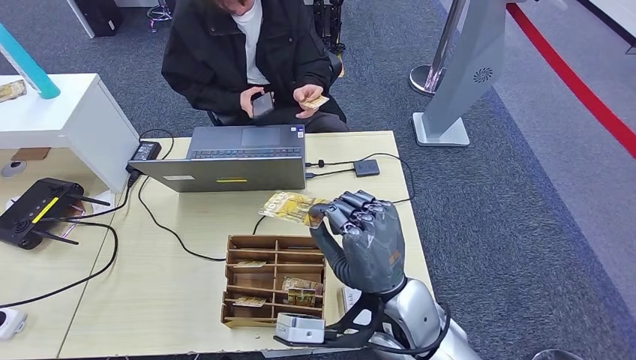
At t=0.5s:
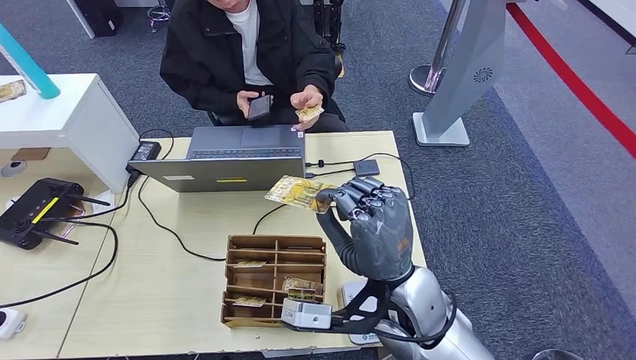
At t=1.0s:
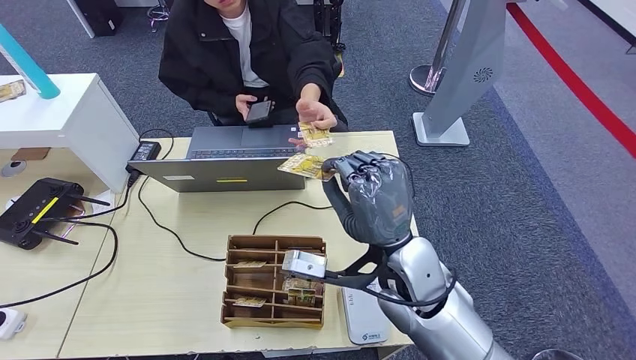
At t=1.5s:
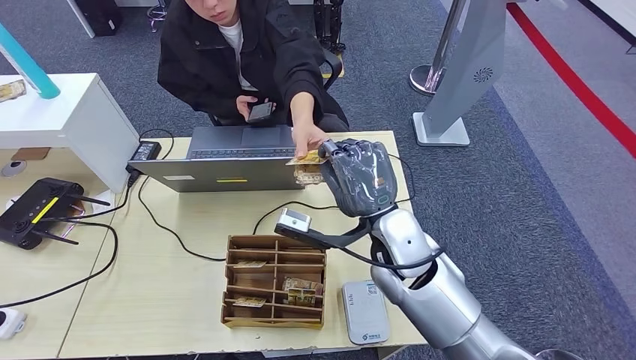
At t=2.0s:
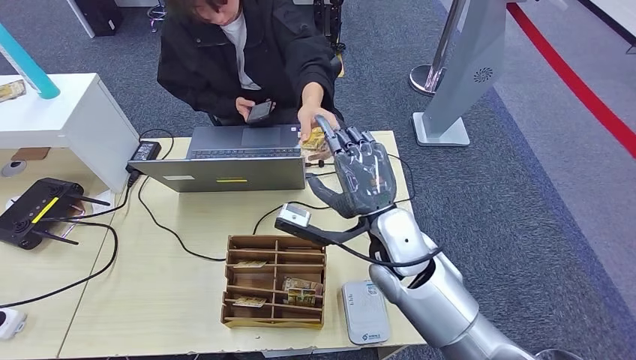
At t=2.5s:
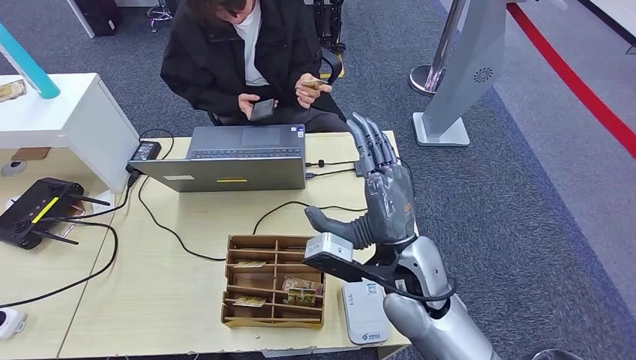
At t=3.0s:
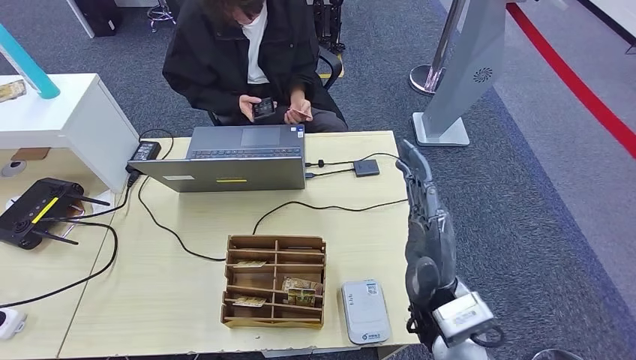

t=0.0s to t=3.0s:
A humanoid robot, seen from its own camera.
Step, t=0.0s to t=3.0s: Hand the room key to the person.
t=0.0s to t=1.5s: The right hand shifts approximately 10 cm forward.
t=1.5s to t=3.0s: The right hand goes approximately 10 cm backward.

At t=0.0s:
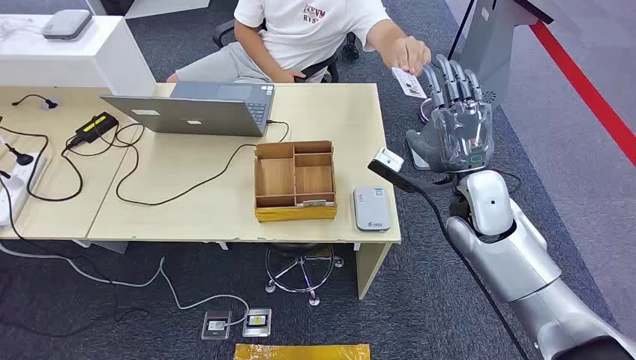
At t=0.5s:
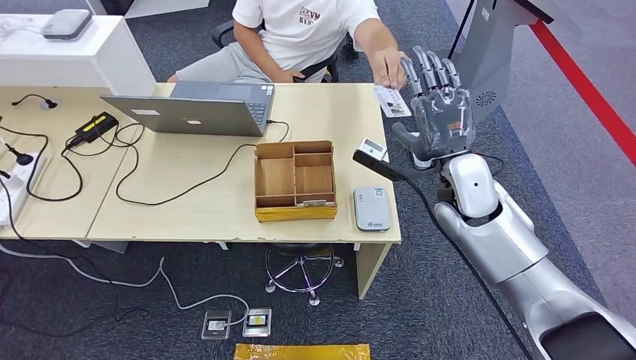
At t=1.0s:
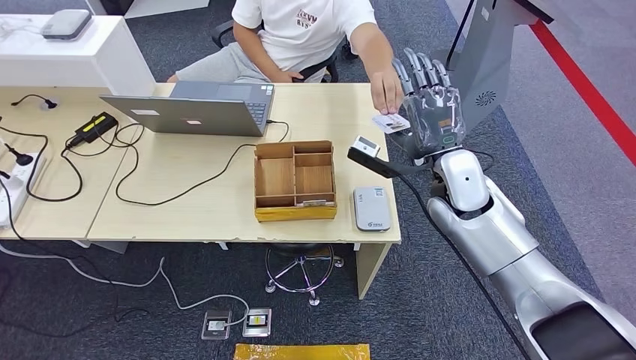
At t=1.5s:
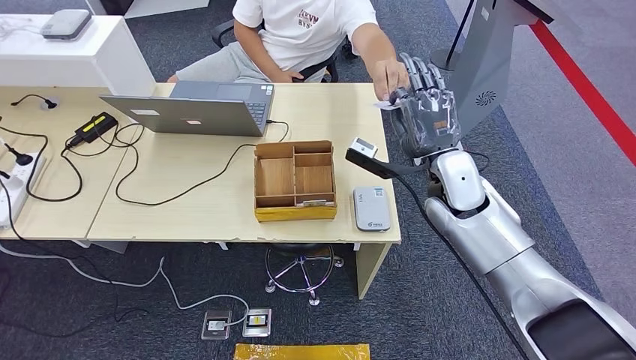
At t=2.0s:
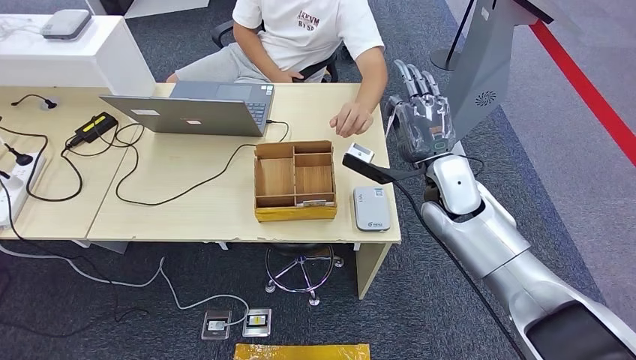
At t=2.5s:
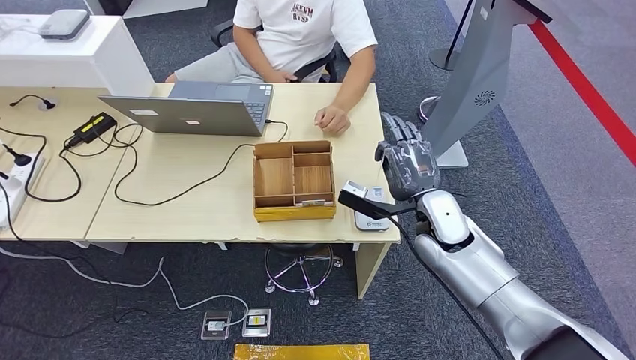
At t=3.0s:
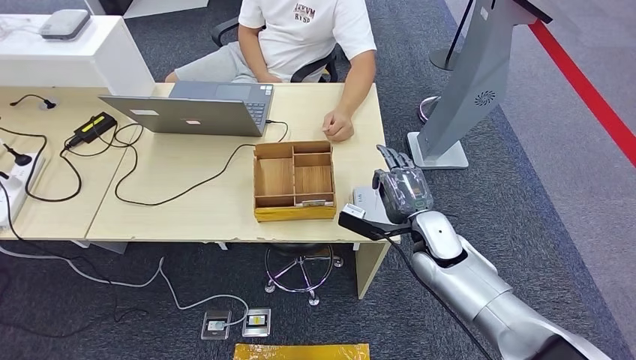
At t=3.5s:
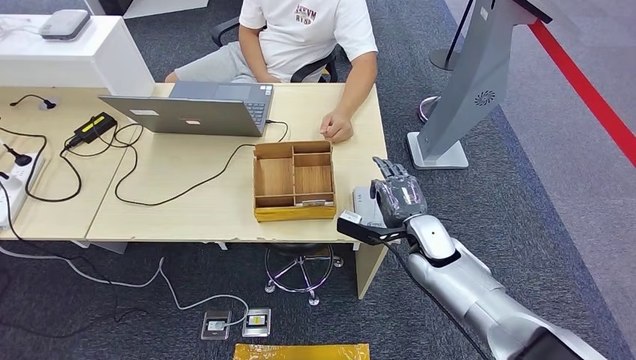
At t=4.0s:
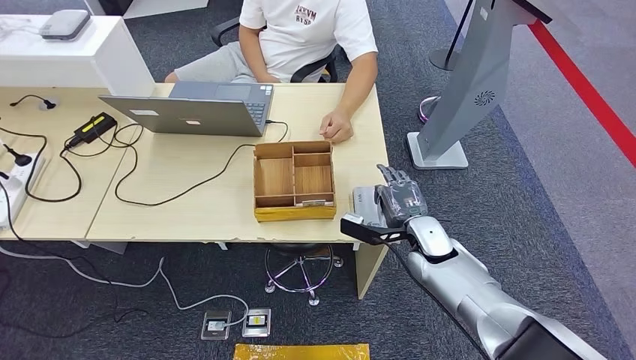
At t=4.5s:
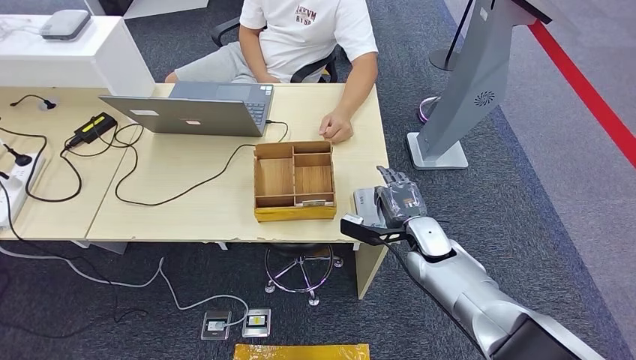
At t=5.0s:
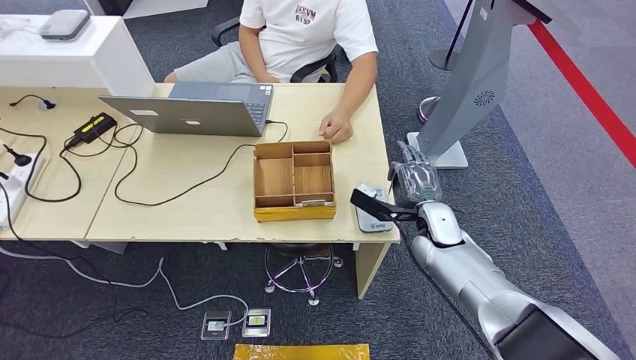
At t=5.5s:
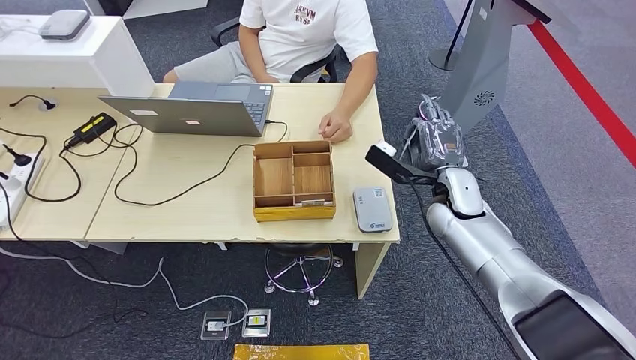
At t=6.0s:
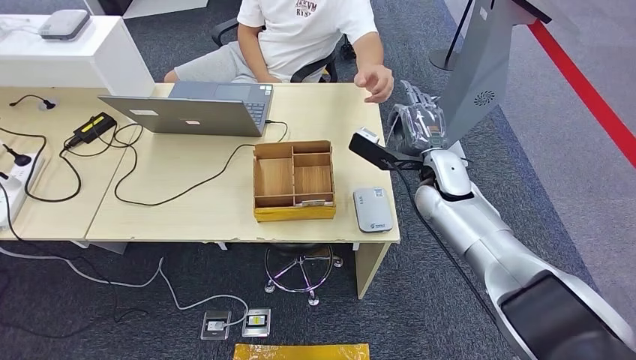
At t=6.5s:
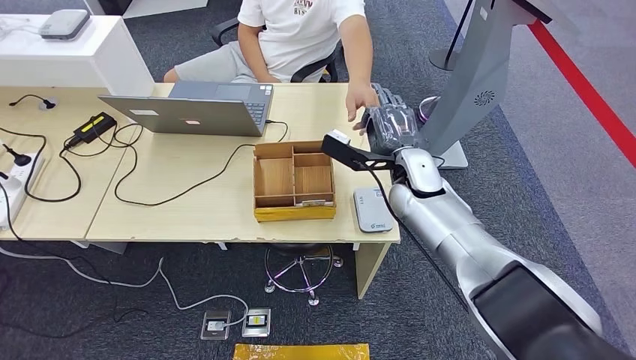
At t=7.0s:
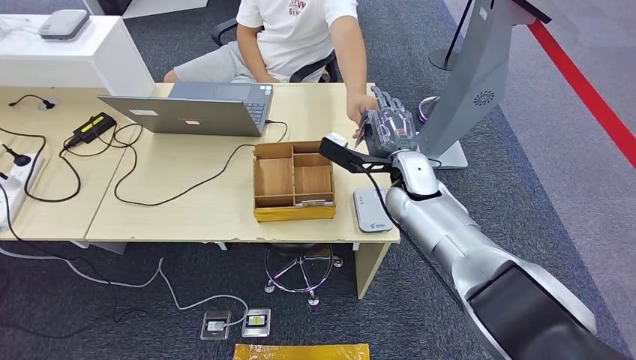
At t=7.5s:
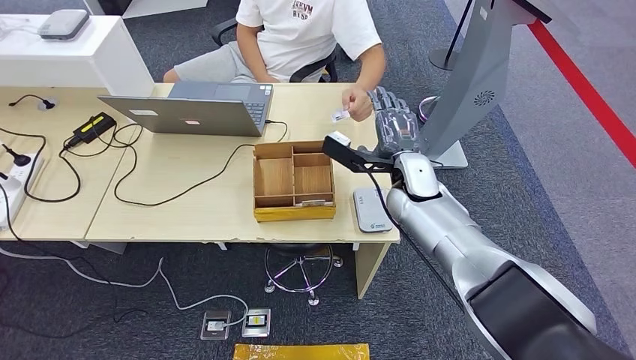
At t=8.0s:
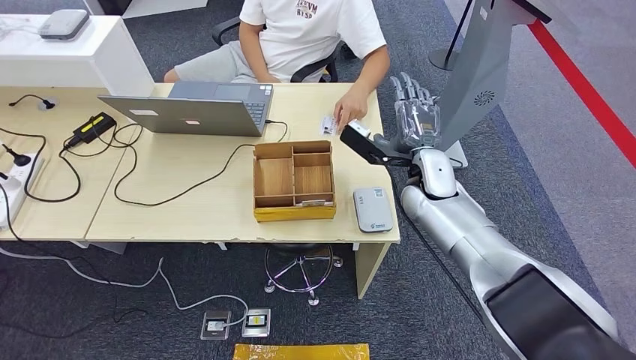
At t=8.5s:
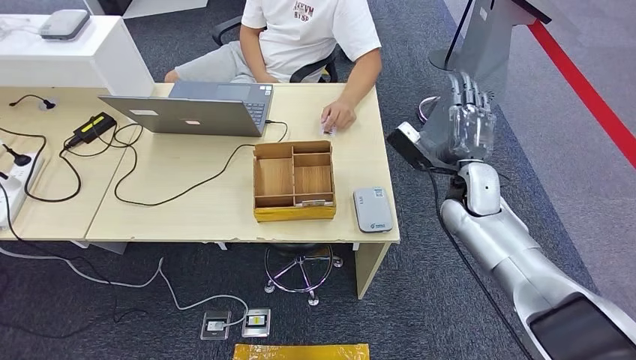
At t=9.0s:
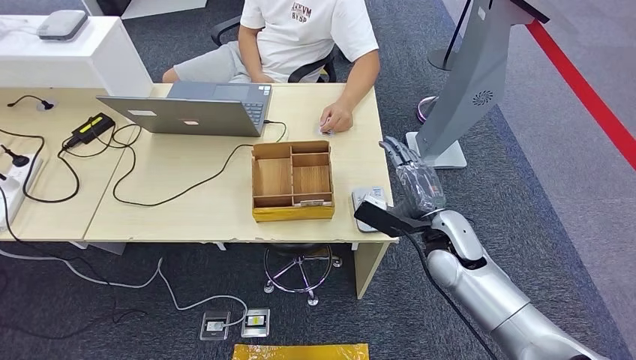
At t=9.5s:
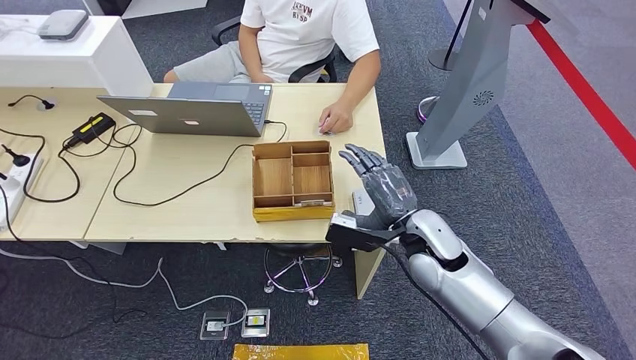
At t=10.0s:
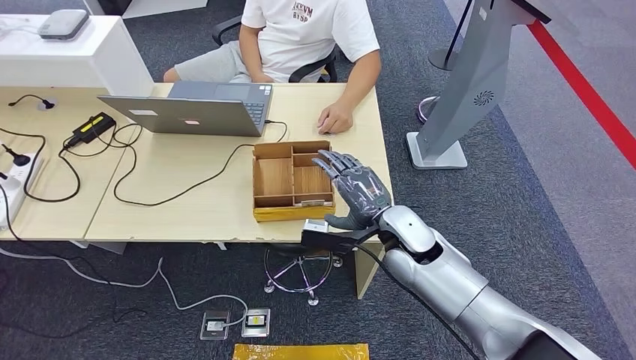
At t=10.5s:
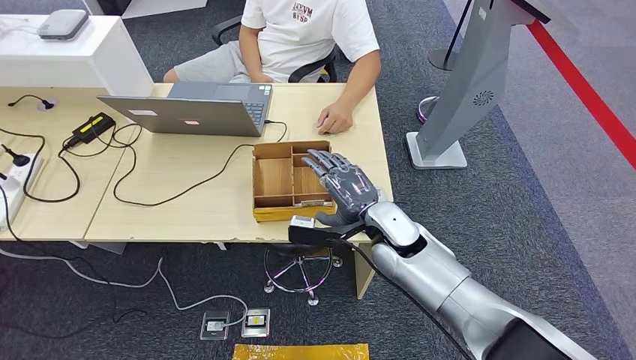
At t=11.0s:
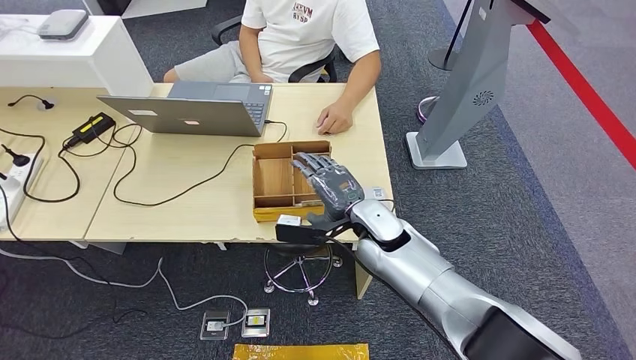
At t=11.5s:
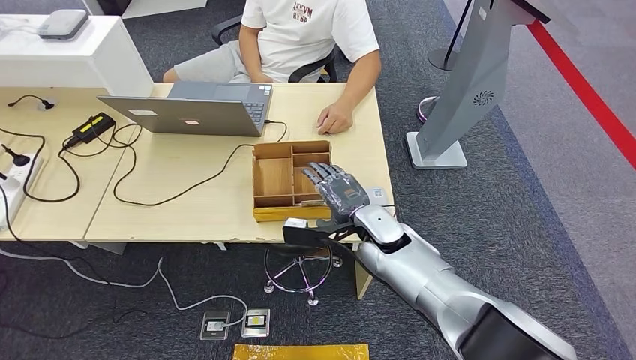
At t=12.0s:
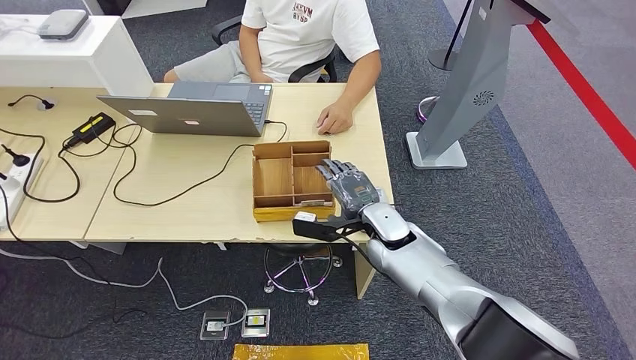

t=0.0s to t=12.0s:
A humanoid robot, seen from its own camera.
Step, t=0.0s to t=1.5s: Take the ID card from the person's hand.
Step, t=2.0s to t=6.0s: Place the ID card on the card reader.
Step, t=6.5s to t=9.0s: Hand the ID card to the person.
t=2.0s to t=4.0s: The right hand is displaced downward by approximately 15 cm.
t=4.0s to t=6.0s: The right hand shifts roughly 15 cm upward and forward.
t=6.0s to t=8.0s: The hands move only a little.
t=8.0s to t=10.0s: The right hand goes about 10 cm backward.
t=10.0s to t=12.0s: The right hand moves approximately 5 cm.

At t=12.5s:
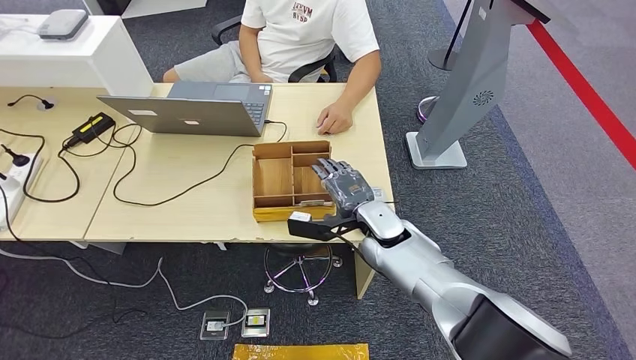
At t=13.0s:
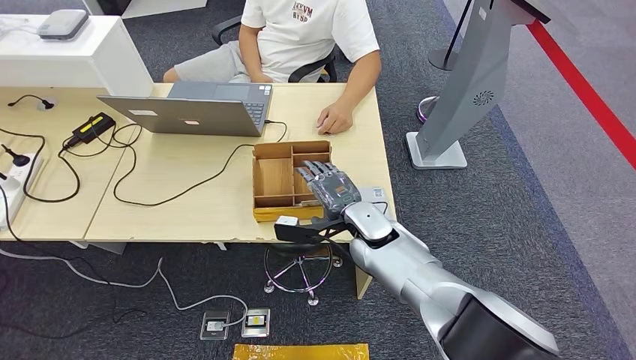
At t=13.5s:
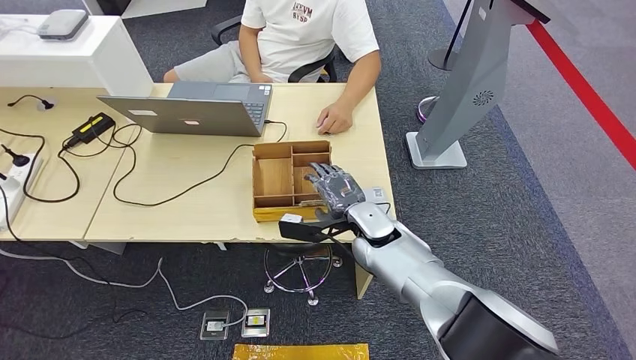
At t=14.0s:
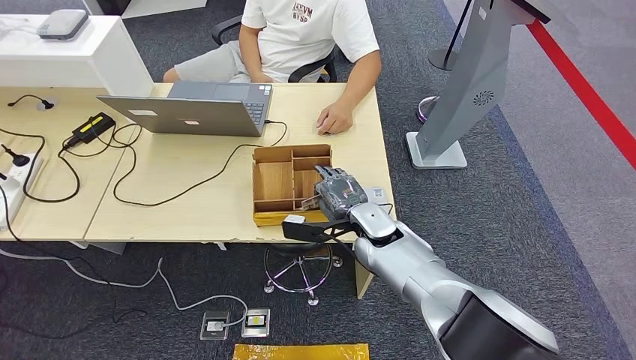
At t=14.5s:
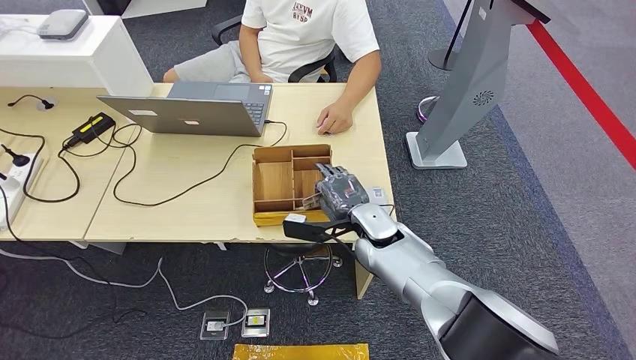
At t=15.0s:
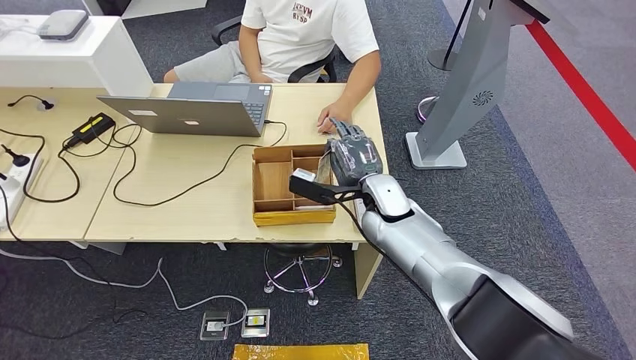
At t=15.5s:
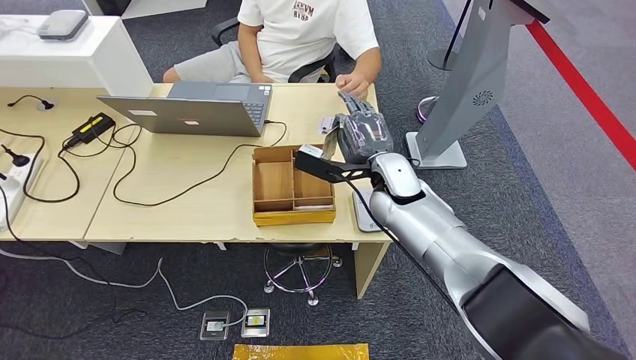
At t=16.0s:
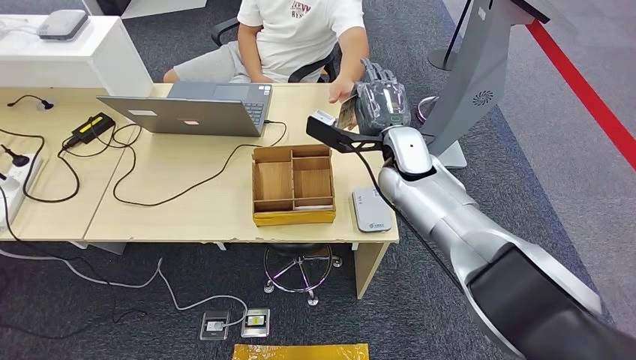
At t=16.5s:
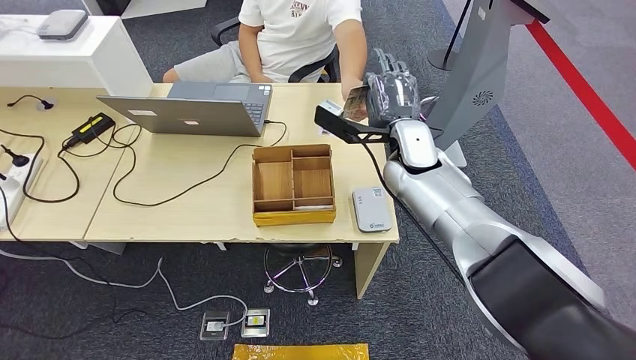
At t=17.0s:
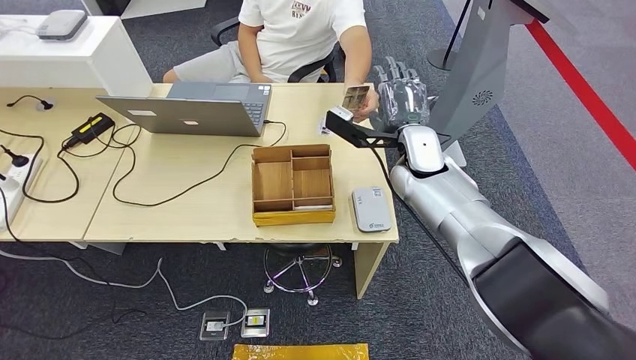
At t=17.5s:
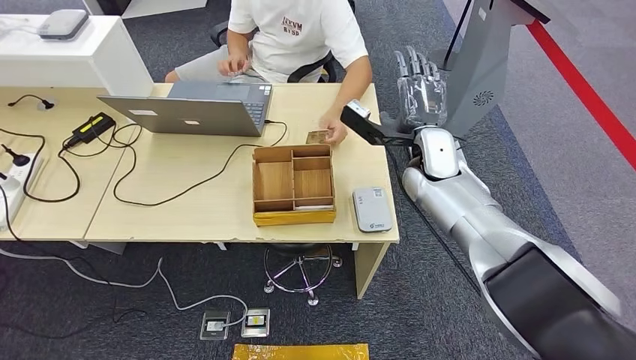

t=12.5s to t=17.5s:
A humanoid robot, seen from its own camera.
Step, t=12.5s to t=15.0s: Pick up the room key from the key card box.
t=12.5s to t=15.0s: The right hand ends up approximately 5 cm from where it was.
t=15.0s to t=17.5s: The right hand moves to the right and upward, some 10 cm.
